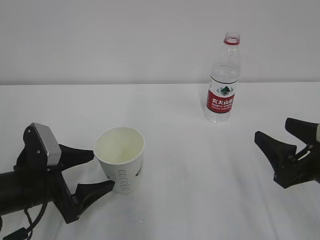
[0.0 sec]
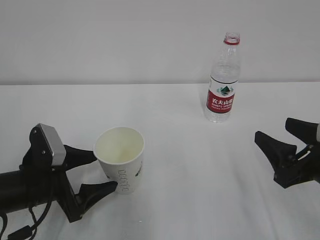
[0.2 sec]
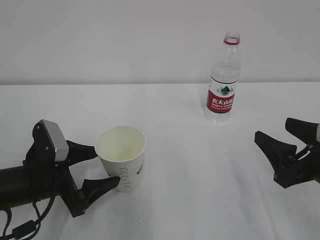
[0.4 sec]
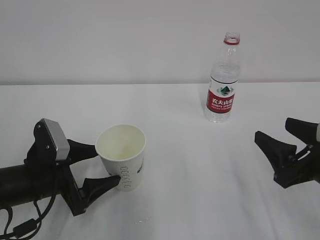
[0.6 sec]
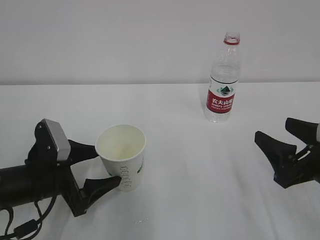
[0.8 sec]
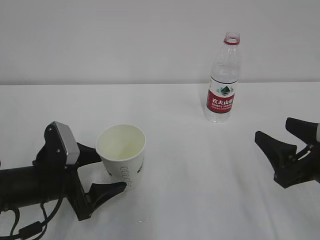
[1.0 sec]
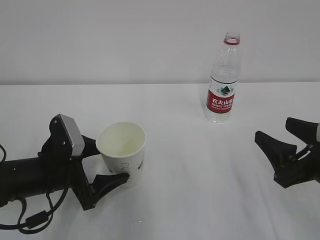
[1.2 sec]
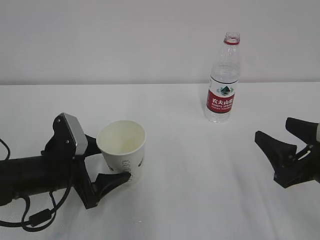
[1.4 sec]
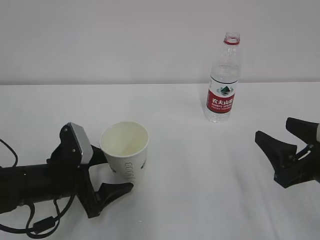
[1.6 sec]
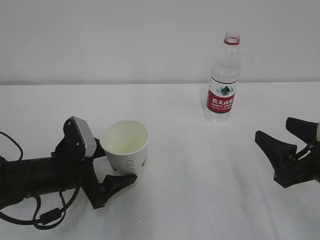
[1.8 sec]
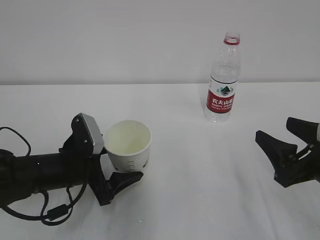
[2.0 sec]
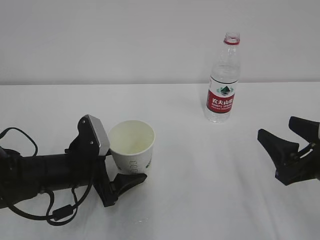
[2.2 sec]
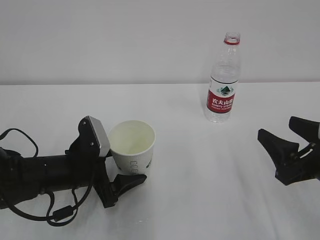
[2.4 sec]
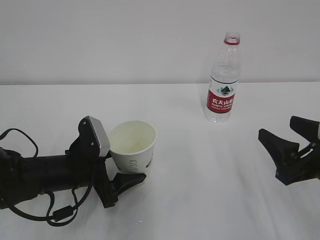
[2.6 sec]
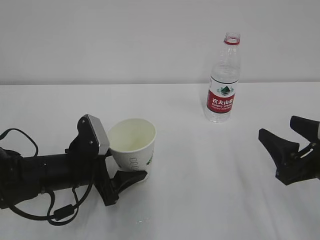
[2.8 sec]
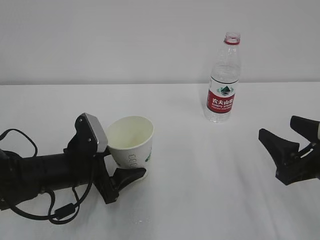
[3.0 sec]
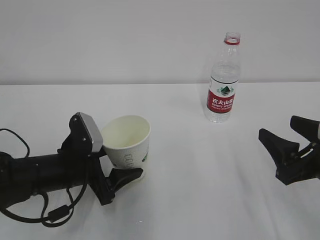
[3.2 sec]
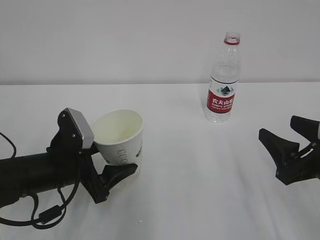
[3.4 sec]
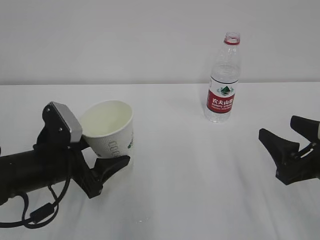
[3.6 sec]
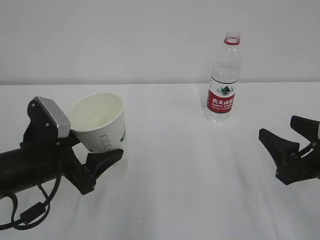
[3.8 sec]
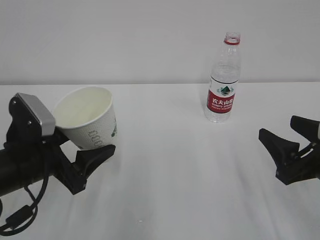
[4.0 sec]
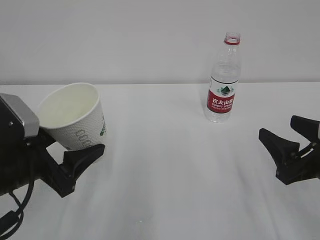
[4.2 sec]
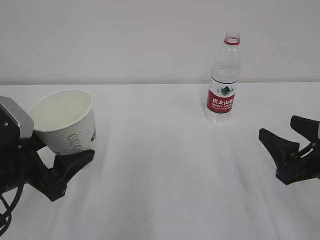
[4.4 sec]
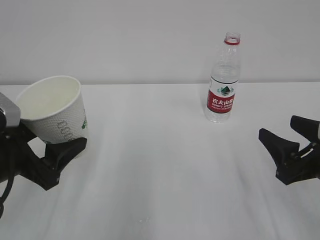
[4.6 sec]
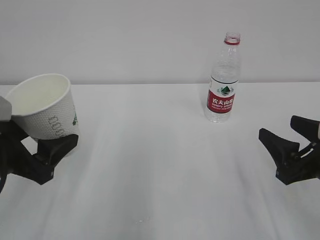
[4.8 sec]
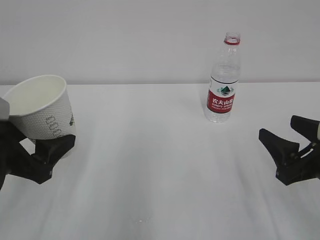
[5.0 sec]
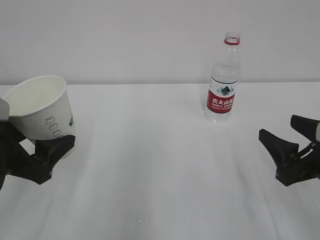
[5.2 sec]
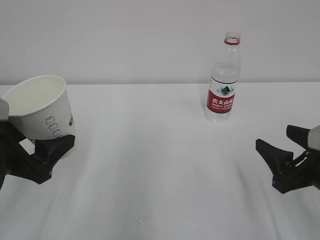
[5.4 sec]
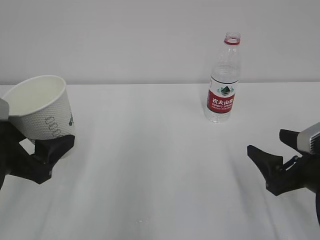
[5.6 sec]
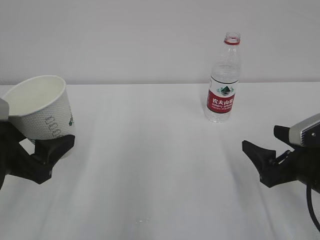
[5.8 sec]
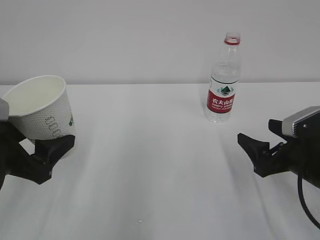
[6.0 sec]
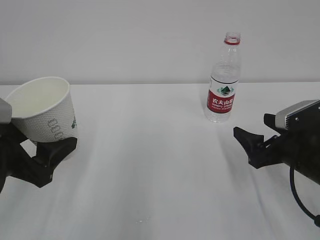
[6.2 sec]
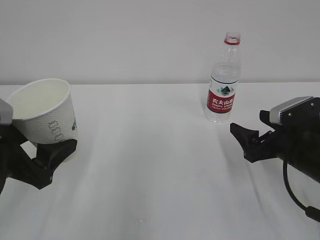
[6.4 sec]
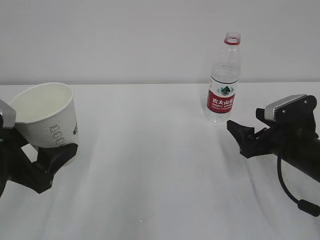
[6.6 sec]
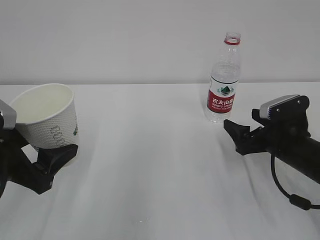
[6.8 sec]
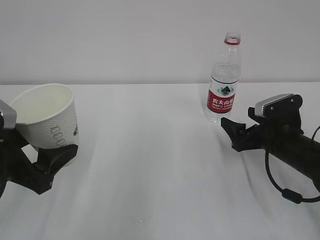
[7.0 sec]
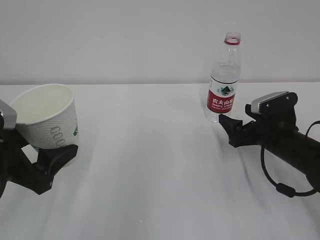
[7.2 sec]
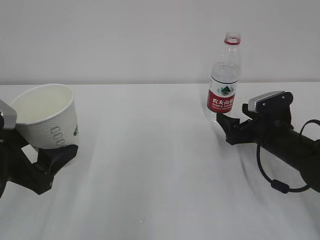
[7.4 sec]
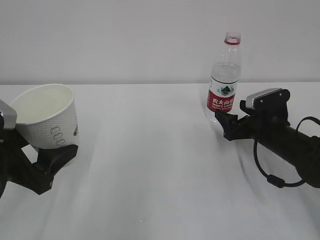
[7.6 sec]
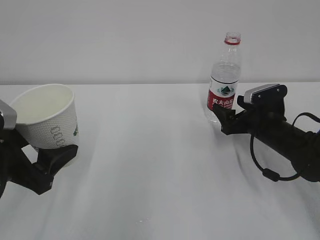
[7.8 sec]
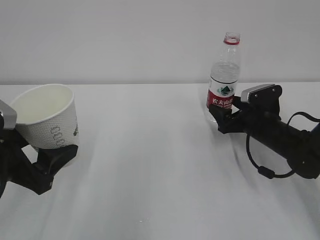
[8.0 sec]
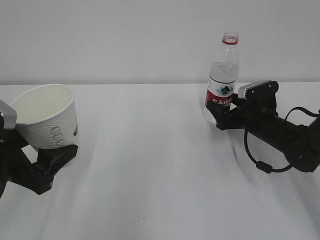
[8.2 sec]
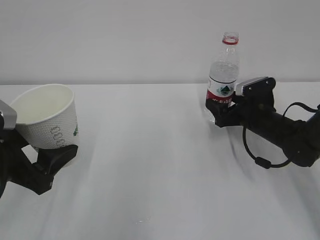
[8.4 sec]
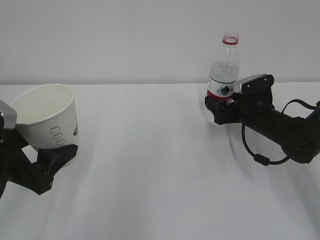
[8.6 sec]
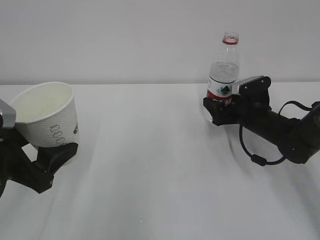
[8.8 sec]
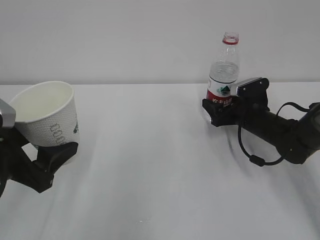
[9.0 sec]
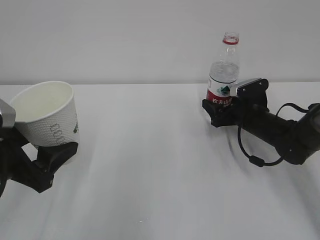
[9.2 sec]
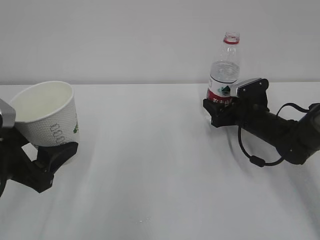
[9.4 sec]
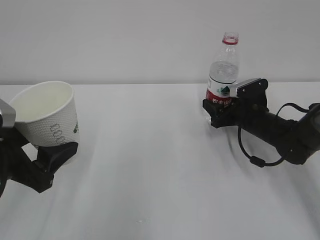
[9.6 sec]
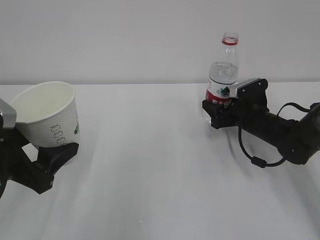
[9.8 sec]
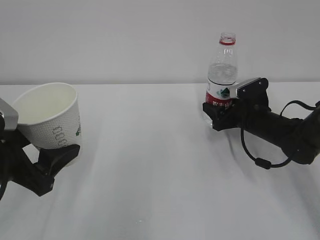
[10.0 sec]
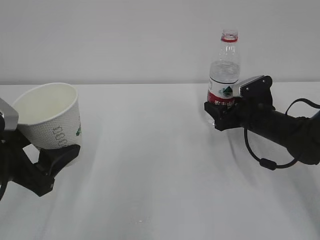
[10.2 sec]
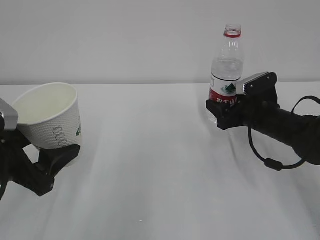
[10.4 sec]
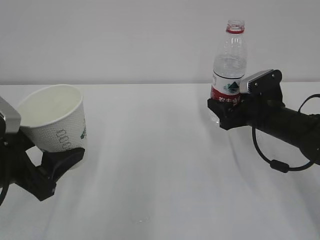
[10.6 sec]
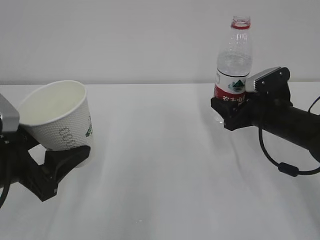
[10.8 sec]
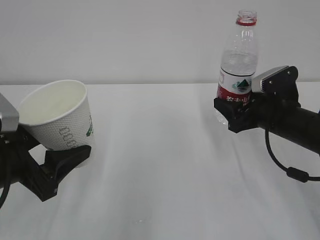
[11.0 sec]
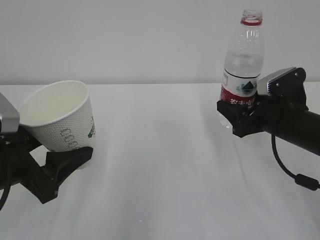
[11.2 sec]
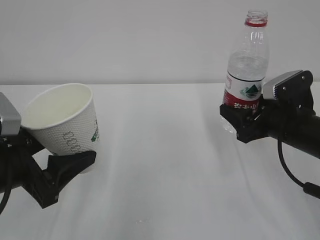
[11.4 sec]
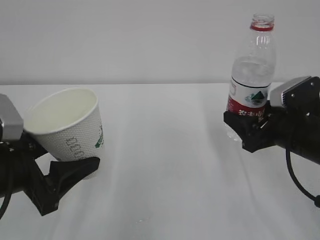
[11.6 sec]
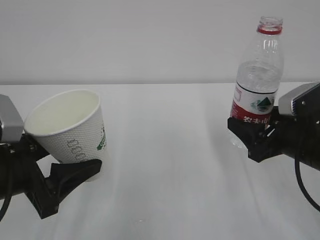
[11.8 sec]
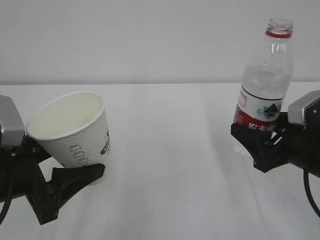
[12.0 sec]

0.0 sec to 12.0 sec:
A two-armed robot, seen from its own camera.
0.0 sec to 1.6 sec: The grippers make only small movements.
1.6 sec to 3.0 sec: The left gripper closes its fingers.
3.0 sec to 4.4 sec: The left gripper heads upward, backward and to the left, covering some 15 cm.
4.4 sec to 6.0 sec: The right gripper moves approximately 5 cm, and opens its fingers.
6.0 sec to 7.6 sec: The right gripper is displaced forward by approximately 10 cm.
7.6 sec to 9.0 sec: The right gripper heads forward, covering approximately 5 cm.
9.0 sec to 10.4 sec: The right gripper closes.
10.4 sec to 12.0 sec: The right gripper is displaced backward and upward by roughly 15 cm.

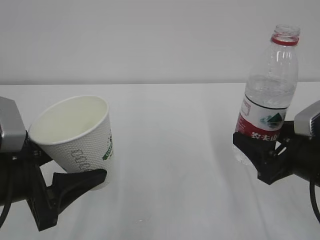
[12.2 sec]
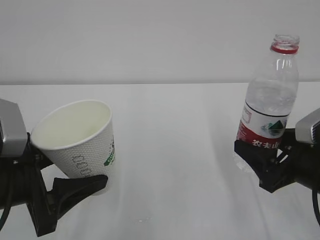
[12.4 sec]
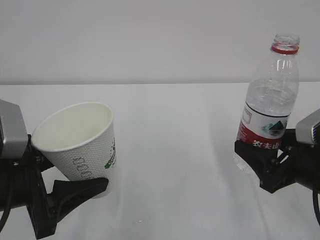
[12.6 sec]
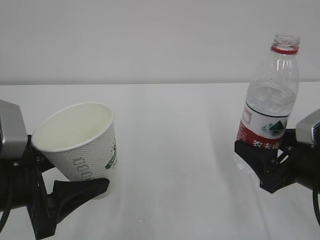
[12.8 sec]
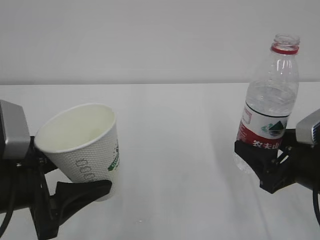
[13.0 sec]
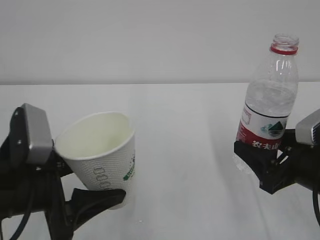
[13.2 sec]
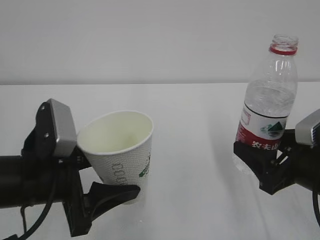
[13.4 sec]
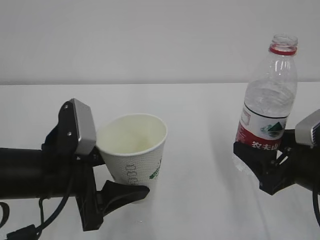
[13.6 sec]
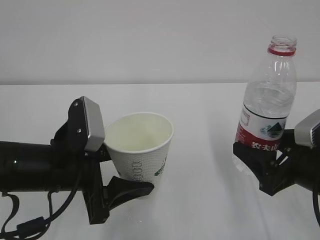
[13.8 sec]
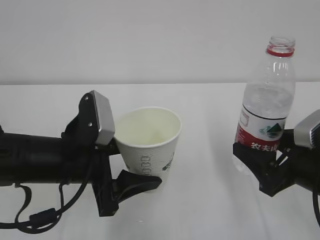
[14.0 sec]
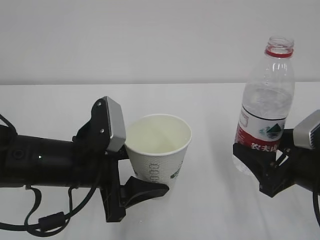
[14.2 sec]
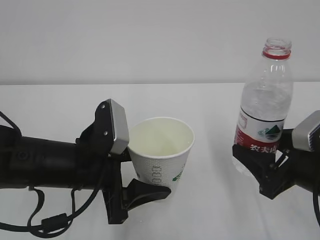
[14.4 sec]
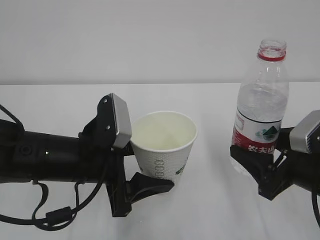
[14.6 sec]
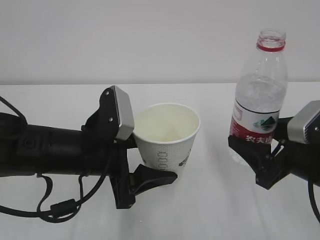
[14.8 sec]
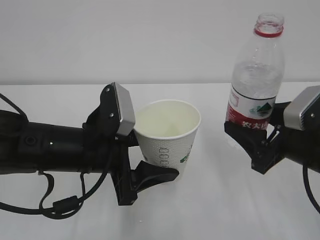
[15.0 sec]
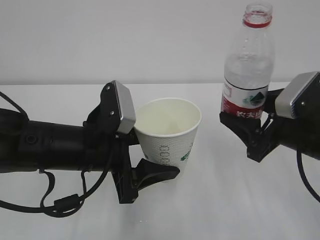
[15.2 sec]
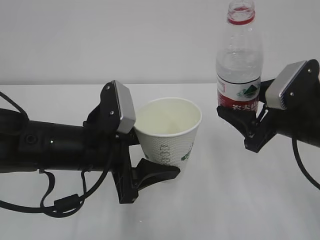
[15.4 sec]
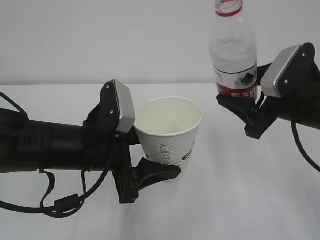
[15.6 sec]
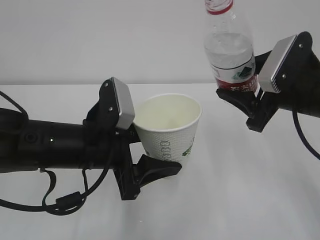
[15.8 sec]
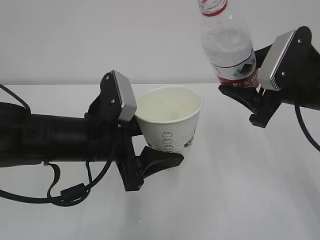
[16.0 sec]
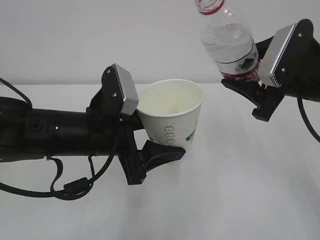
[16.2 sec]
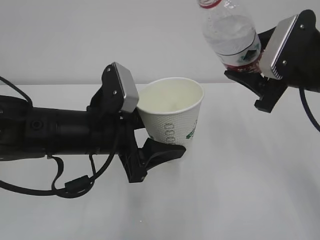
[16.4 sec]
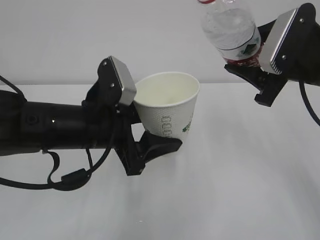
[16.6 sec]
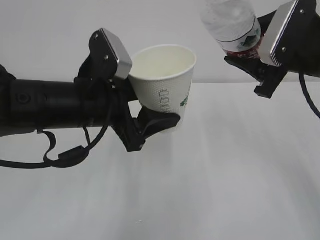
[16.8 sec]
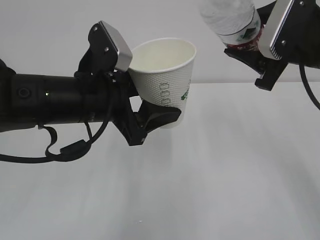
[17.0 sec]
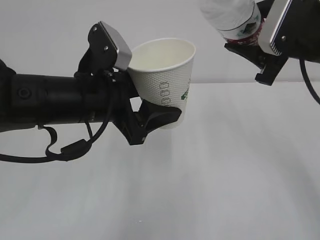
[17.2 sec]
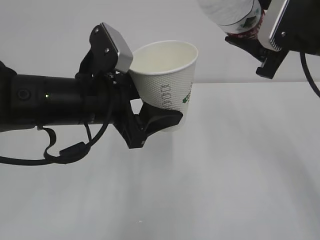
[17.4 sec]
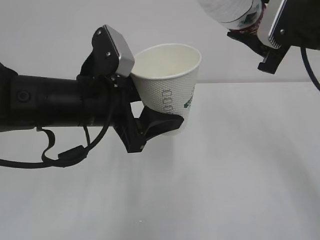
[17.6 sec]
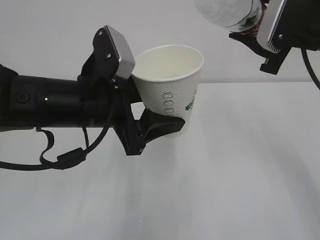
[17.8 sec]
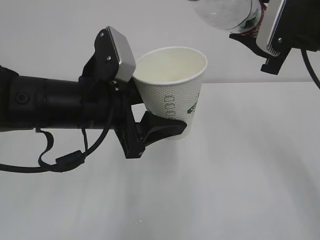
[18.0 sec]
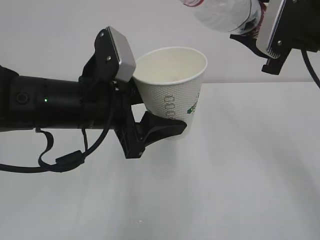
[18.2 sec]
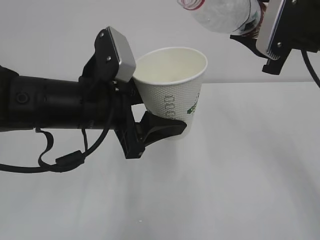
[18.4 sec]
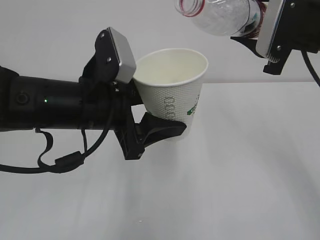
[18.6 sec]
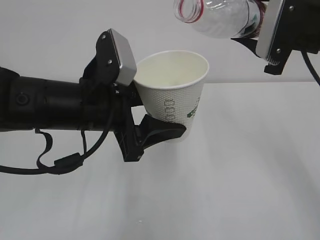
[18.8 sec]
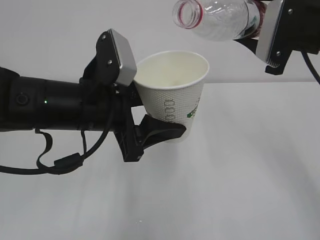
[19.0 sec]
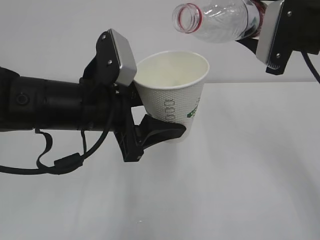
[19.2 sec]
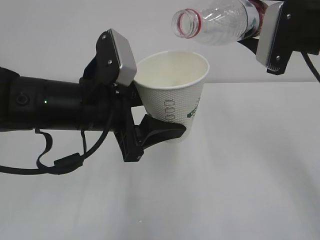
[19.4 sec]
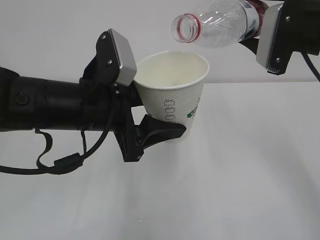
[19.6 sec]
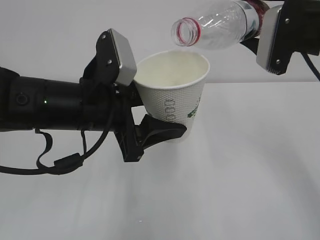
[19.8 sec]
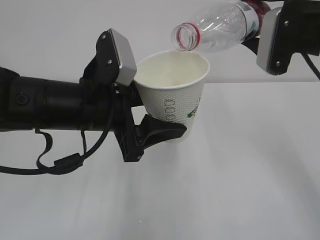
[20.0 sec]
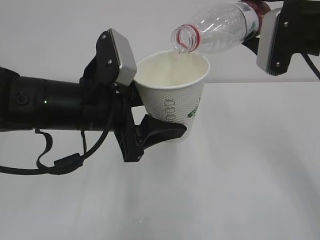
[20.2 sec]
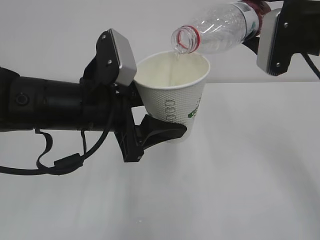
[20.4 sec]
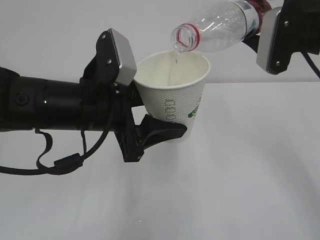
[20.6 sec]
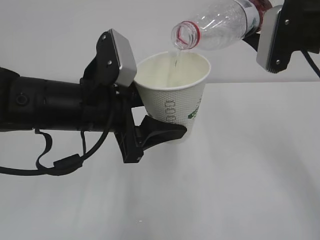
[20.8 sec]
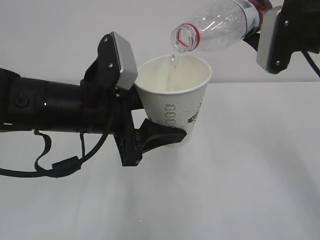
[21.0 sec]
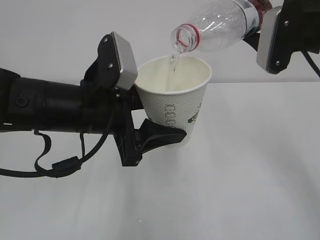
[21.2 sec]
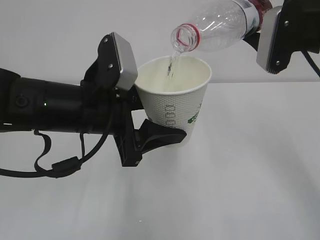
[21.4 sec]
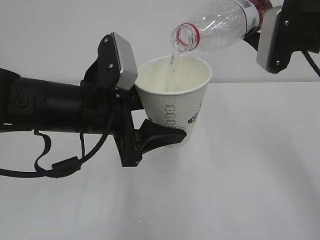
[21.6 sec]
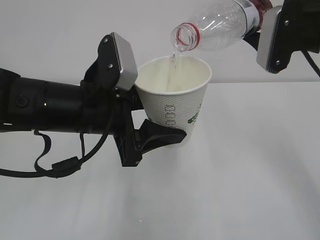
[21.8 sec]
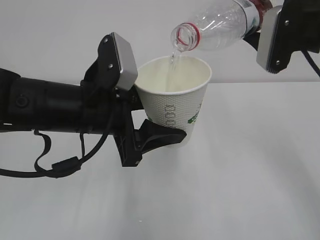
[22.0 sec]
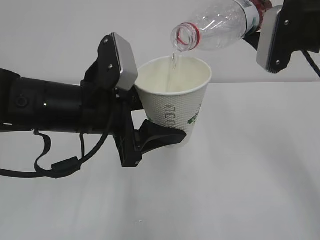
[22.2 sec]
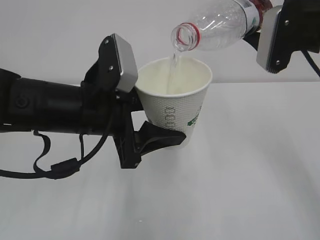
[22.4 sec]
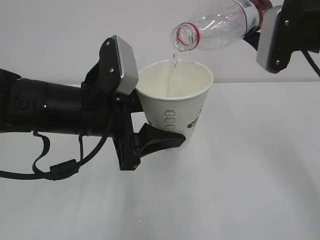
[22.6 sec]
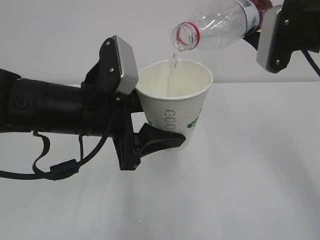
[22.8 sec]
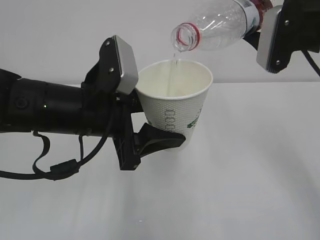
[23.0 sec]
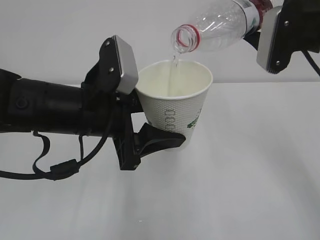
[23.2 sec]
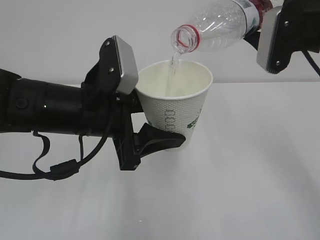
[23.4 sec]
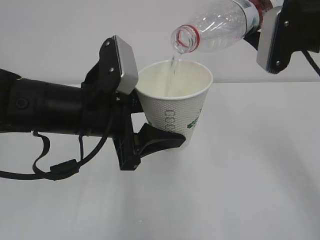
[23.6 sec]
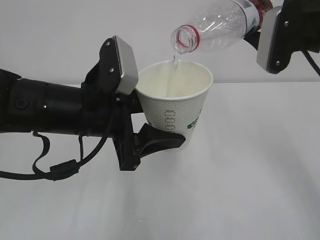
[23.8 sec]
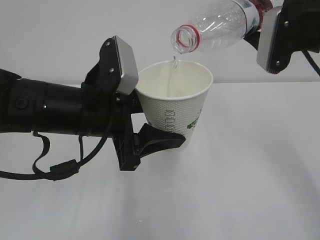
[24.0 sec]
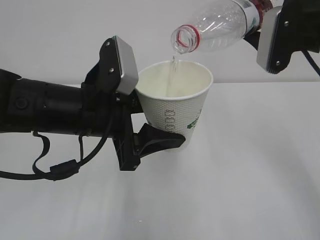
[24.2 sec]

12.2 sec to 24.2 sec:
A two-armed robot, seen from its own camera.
12.2 sec to 13.8 sec: The left gripper moves to the right, some 5 cm.
13.8 sec to 15.2 sec: The right gripper moves approximately 5 cm.
15.2 sec to 16.6 sec: The right gripper moves upward, approximately 10 cm.
18.2 sec to 19.8 sec: The grippers stay close to where they were, moving slightly.
19.8 sec to 22.6 sec: Neither gripper changes place.
22.6 sec to 24.2 sec: Both grippers stay put.
